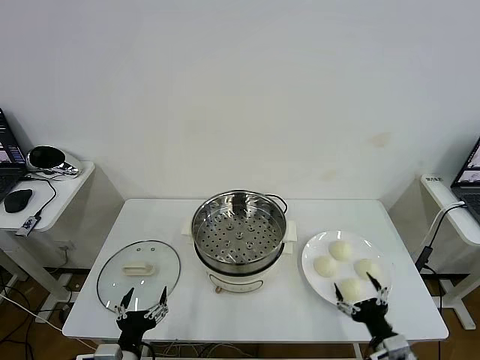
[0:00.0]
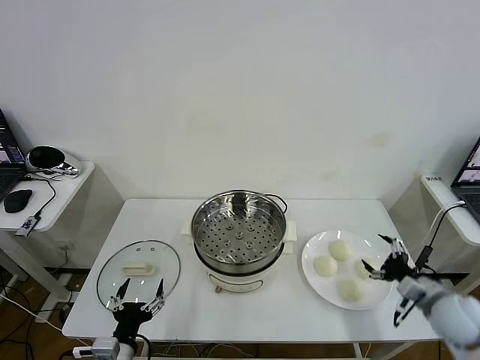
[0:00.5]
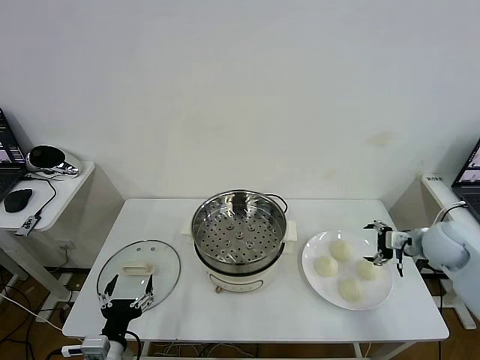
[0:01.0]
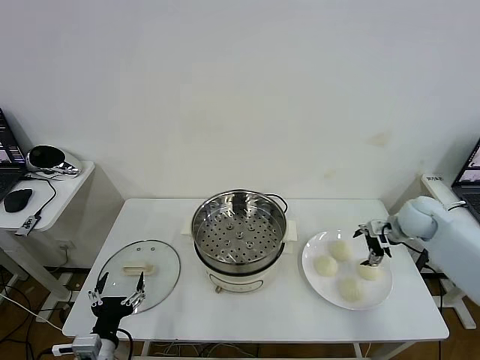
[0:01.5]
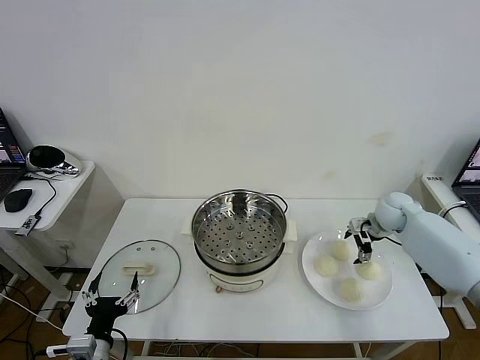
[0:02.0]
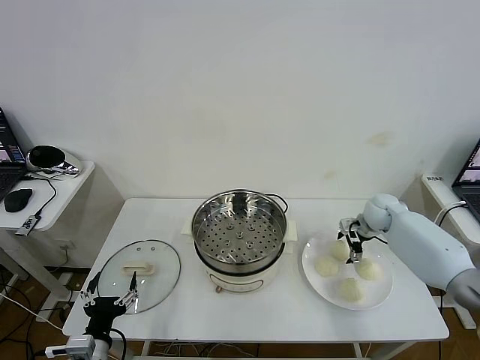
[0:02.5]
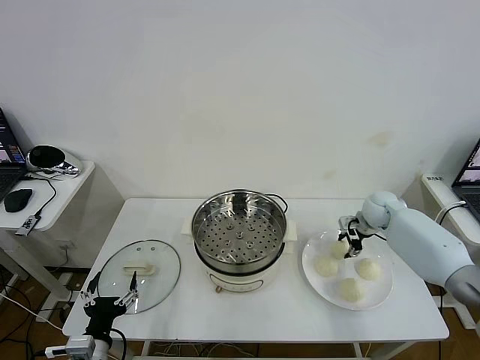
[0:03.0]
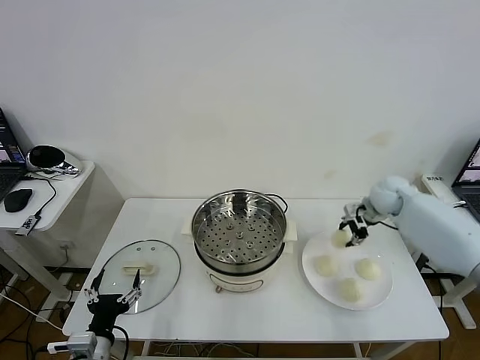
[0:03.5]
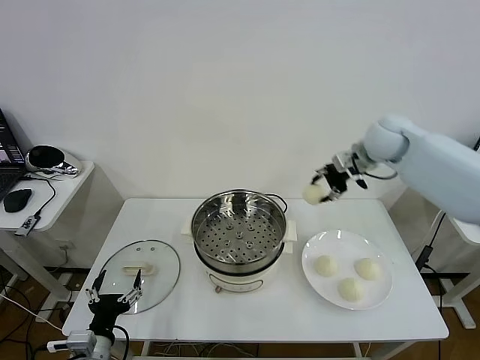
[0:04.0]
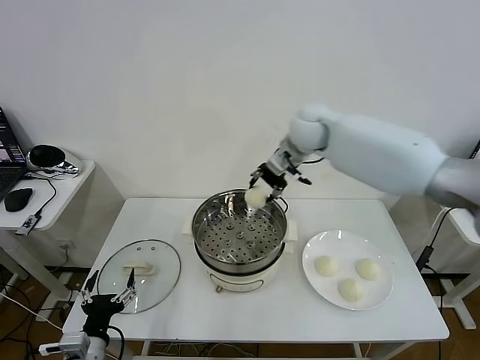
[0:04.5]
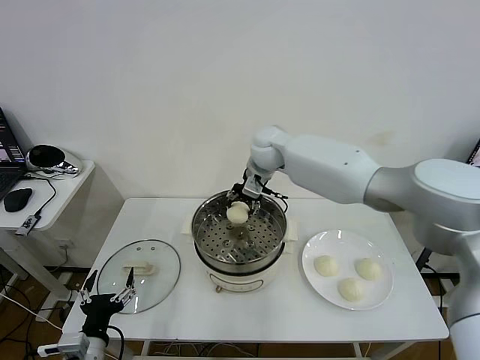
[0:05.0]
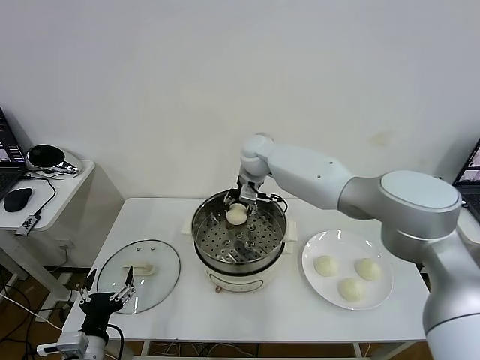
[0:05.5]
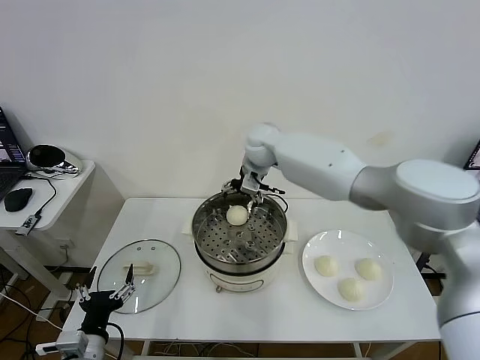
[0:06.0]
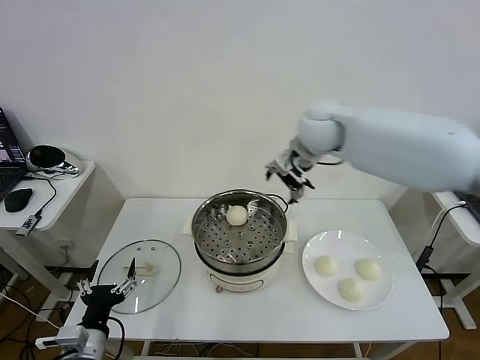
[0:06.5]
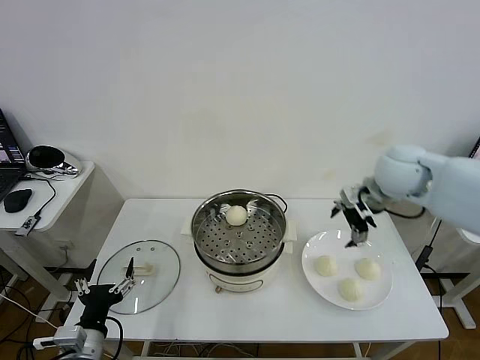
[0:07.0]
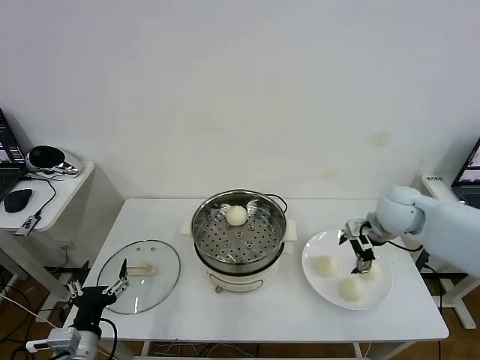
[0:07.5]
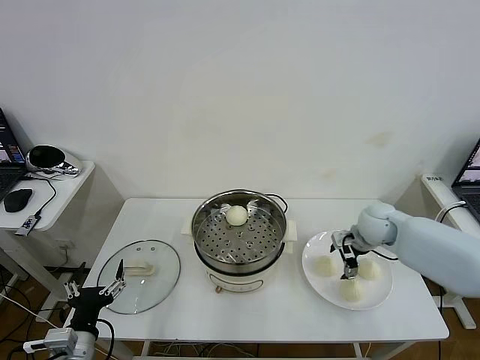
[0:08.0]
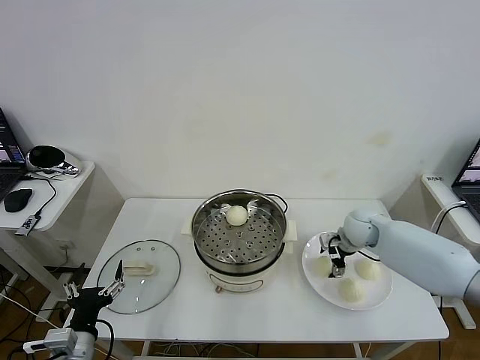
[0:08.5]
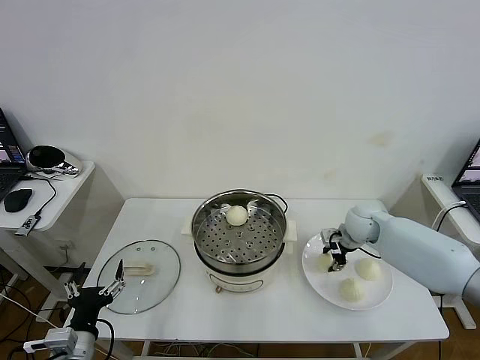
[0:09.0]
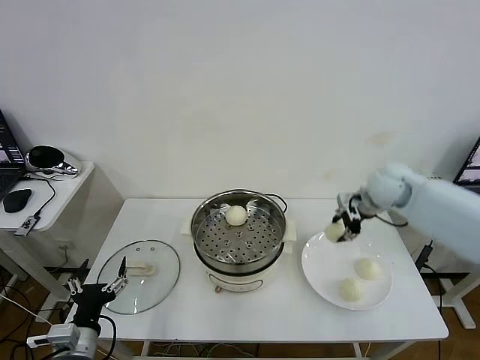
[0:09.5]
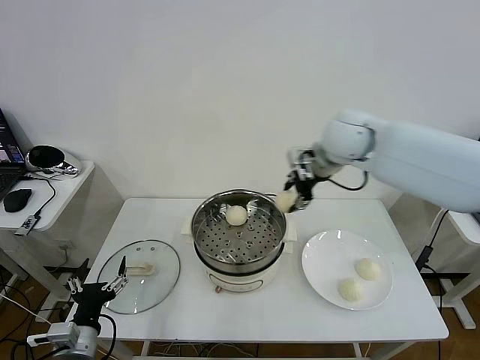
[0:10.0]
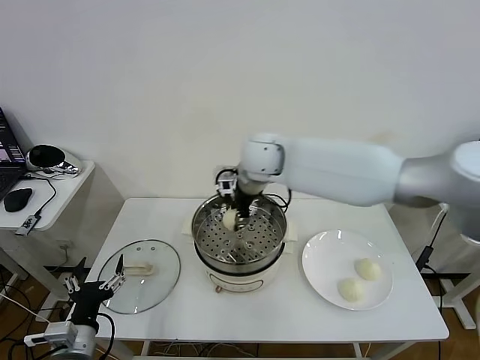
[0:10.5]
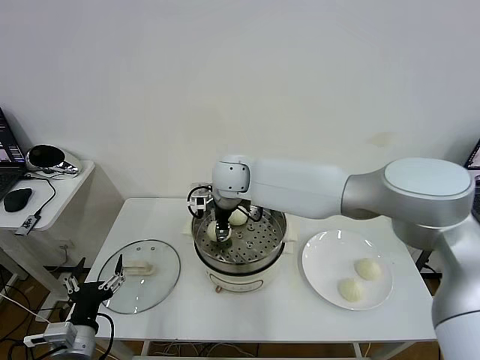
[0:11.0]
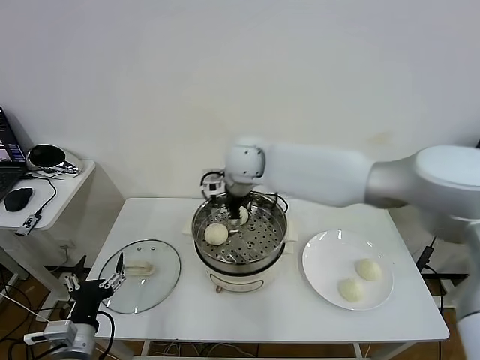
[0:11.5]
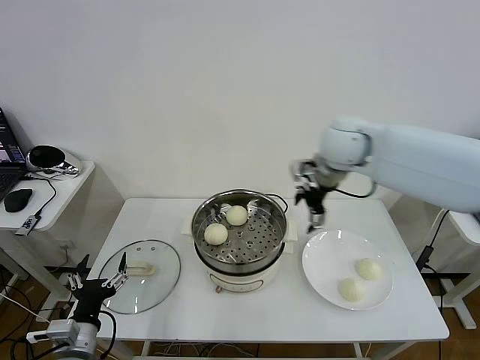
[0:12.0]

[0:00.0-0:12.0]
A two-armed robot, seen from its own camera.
Task of the whole recording: take steamed baozi put them in steamer then cover it.
Step, 0:00.0 to 0:02.5: Grasp the baozi in the plate with right gripper.
Step, 0:03.5 to 0:06.0: Place the baozi on the steamer with right gripper.
Step, 0:06.5 to 0:08.5: Grasp the baozi in the plate with right gripper.
Step, 0:09.0 to 0:11.0: Place the baozi on the steamer with right gripper.
0:02.0 to 0:04.0: The right gripper is displaced upward and to the left by some 25 cm, and closes.
0:04.0 to 0:06.0: The right gripper goes about 20 cm to the left, and opens.
0:06.0 to 0:08.0: The right gripper travels to the right, downward and backward by about 35 cm.
0:08.0 to 0:10.0: The right gripper travels upward and to the left by about 30 cm, and closes.
0:10.0 to 0:12.0: The right gripper moves roughly 20 cm to the left and comes back, and opens.

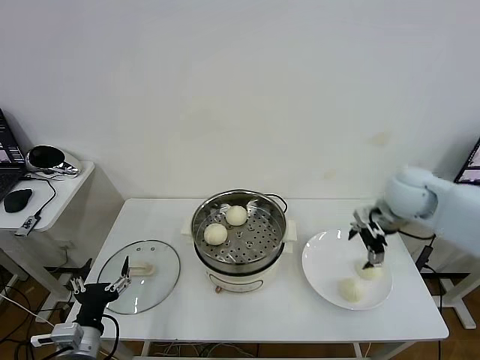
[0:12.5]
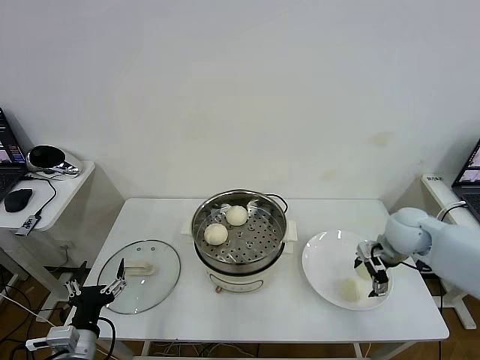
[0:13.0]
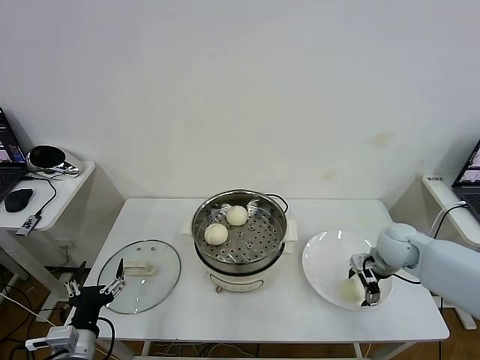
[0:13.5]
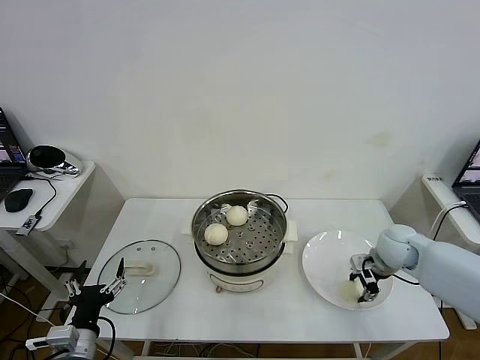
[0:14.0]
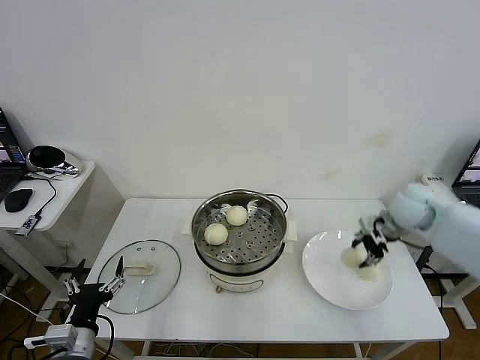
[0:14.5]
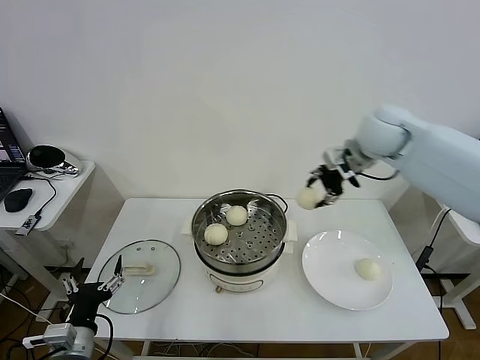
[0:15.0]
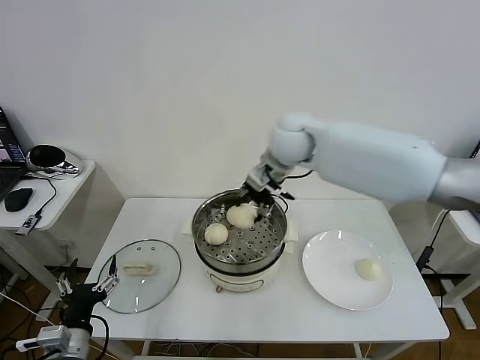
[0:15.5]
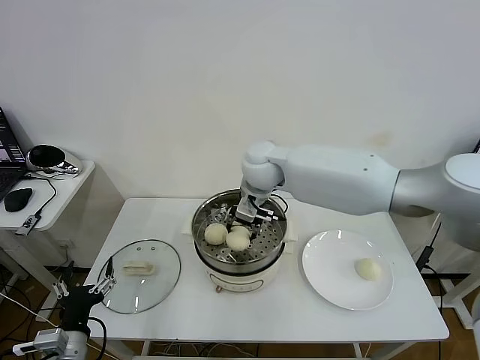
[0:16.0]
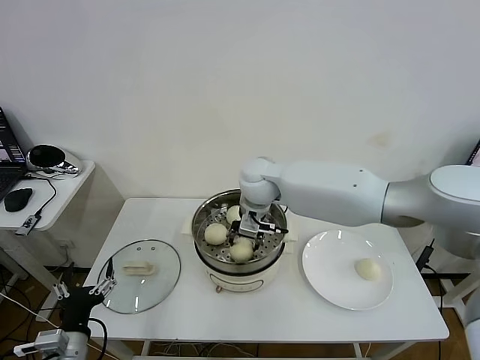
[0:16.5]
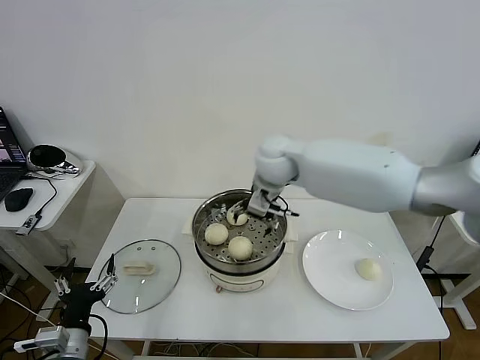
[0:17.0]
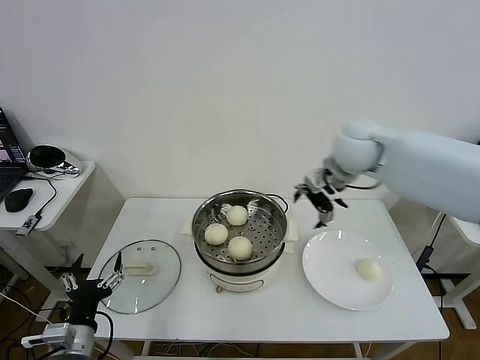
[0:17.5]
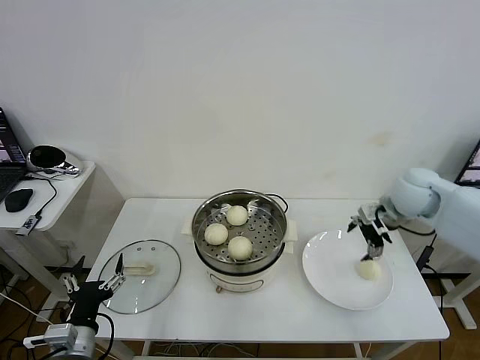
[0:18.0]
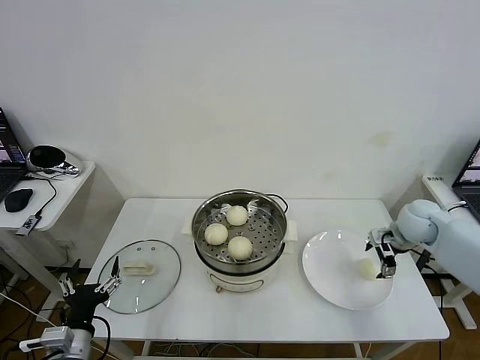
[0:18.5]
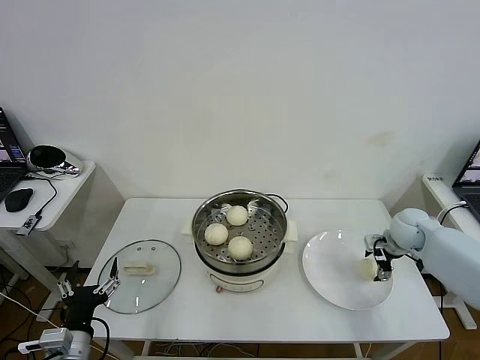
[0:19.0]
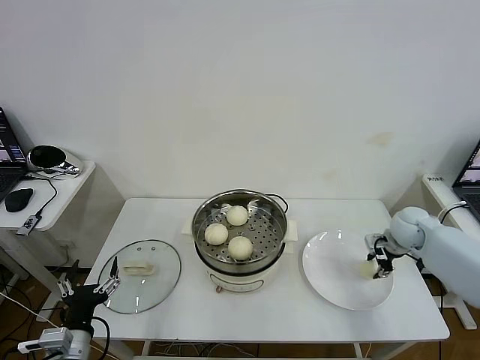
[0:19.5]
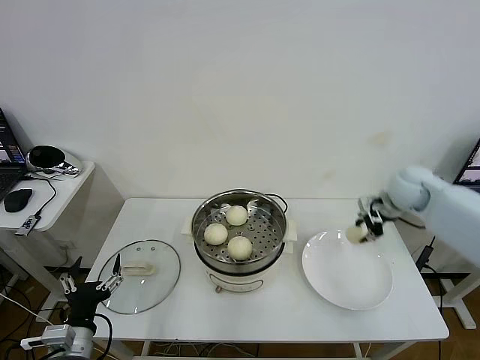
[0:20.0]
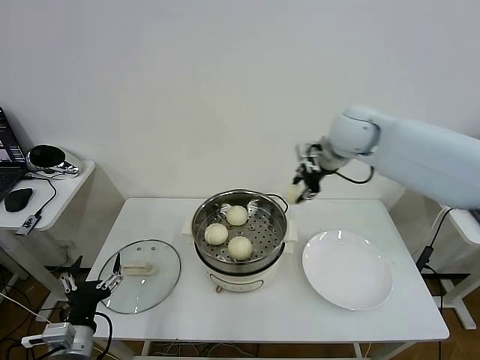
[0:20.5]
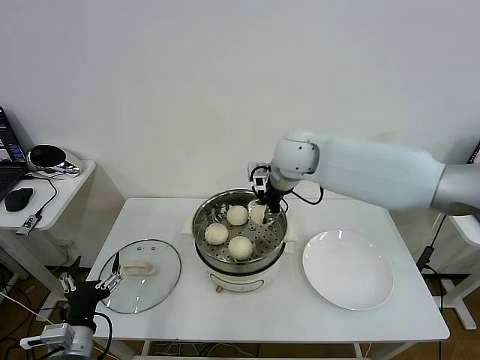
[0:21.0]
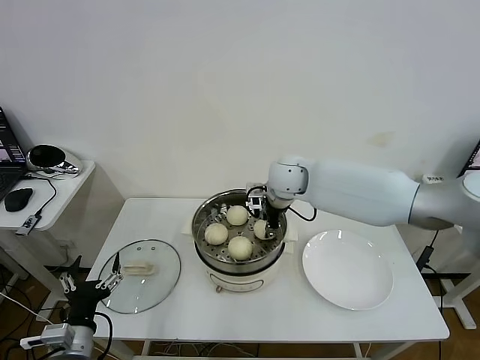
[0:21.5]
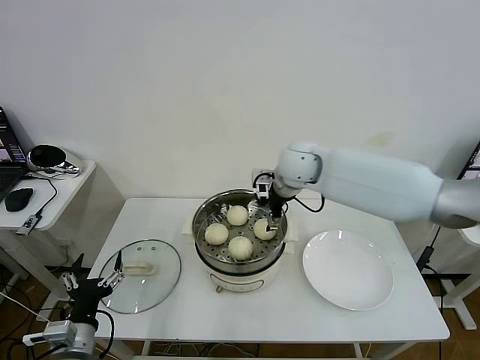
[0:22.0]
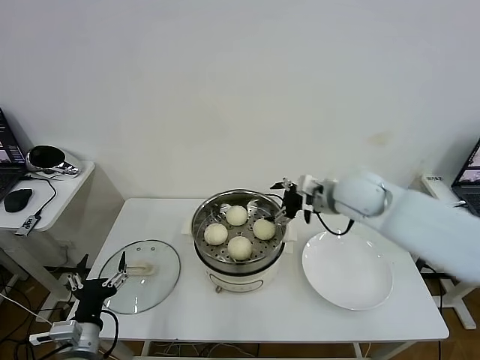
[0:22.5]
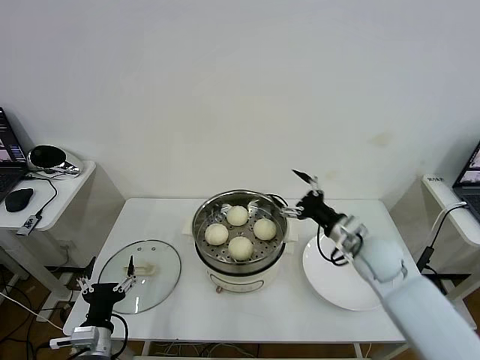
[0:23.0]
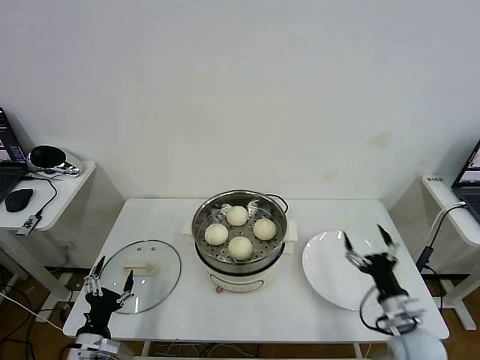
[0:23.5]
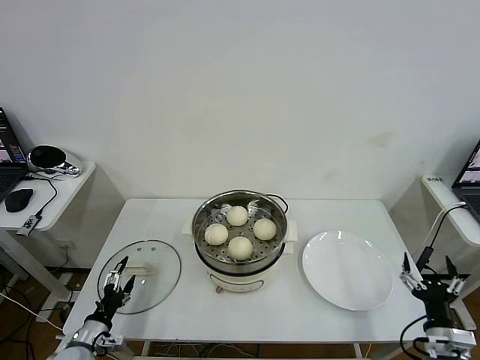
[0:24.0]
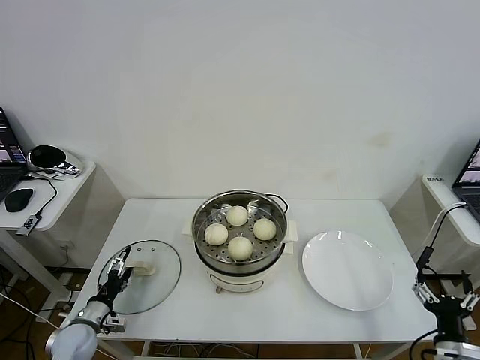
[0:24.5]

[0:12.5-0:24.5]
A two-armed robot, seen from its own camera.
Task of the whole recording: take steamed baozi put them in steamer then cover it.
Step, 0:14.5 to 0:16.5: Place the baozi on the steamer with right gripper.
Step, 0:17.0 to 0:19.0: Grasp the baozi in the plate with right gripper.
Step, 0:19.5 to 0:22.0: Place the baozi on the steamer with right gripper.
0:12.5 to 0:14.5: The right gripper moves approximately 15 cm downward and comes back, and closes up.
0:14.5 to 0:16.5: The right gripper heads to the left, covering about 35 cm.
0:16.5 to 0:18.5: The right gripper heads to the right, covering some 40 cm, and opens up.
0:18.5 to 0:20.5: The right gripper heads to the left and upward, covering some 30 cm, and closes up.
0:20.5 to 0:22.5: The right gripper goes roughly 10 cm downward and backward, moves roughly 10 cm to the left and comes back, and opens.
0:22.5 to 0:24.5: The left gripper shifts approximately 20 cm downward, forward and to the left. The right gripper heads backward, downward and to the right, covering approximately 40 cm.

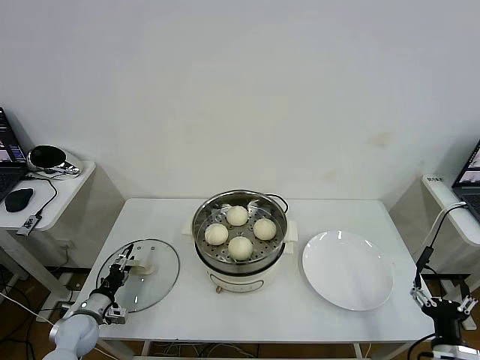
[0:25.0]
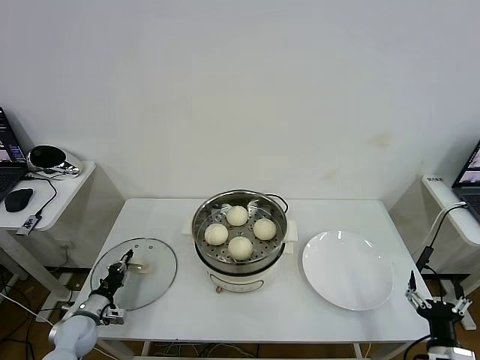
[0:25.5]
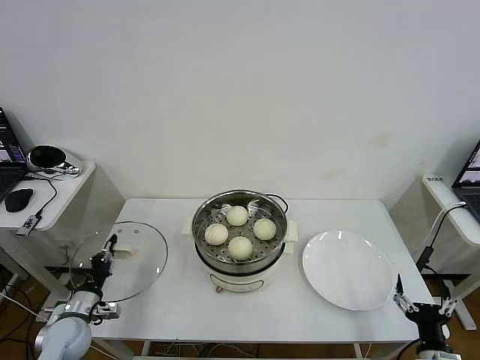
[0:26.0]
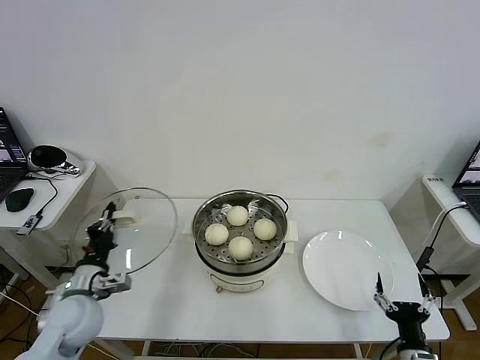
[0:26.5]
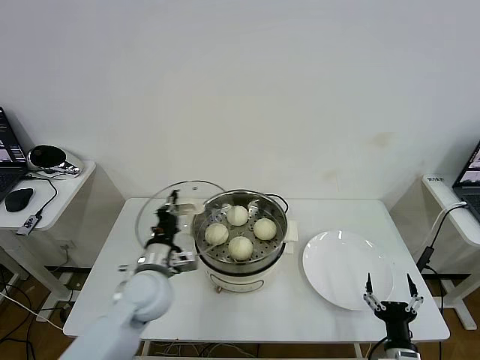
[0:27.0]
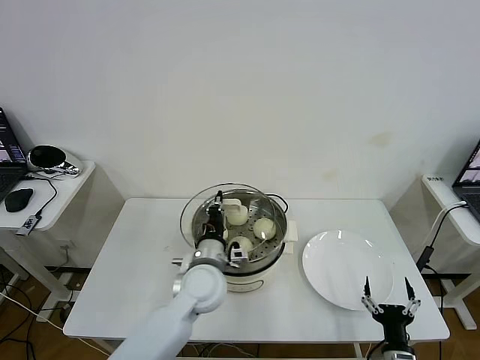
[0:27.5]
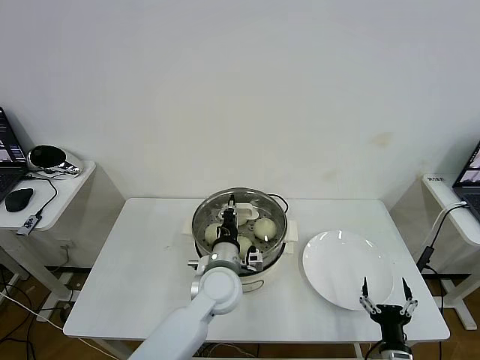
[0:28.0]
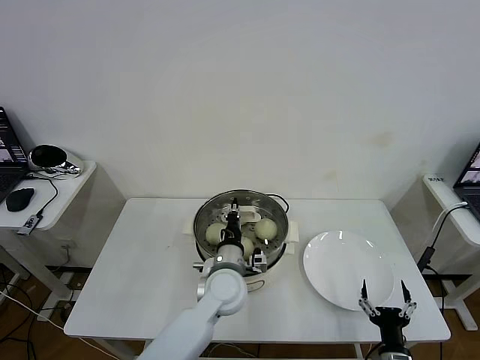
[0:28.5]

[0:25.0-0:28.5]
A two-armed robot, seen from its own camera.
Task of the whole recording: take steamed baozi put them in steamer then cover it.
0:25.0 to 0:27.0: The left gripper travels to the right and upward by roughly 30 cm, and closes its fingers; the right gripper is displaced to the left by approximately 5 cm.
0:27.0 to 0:28.5: The left gripper heads to the right, covering some 15 cm.
